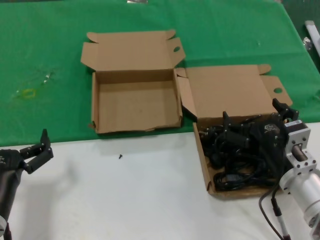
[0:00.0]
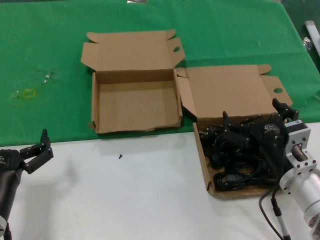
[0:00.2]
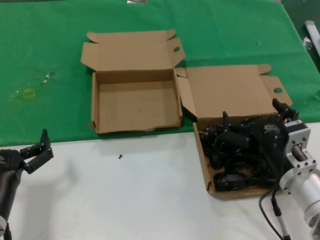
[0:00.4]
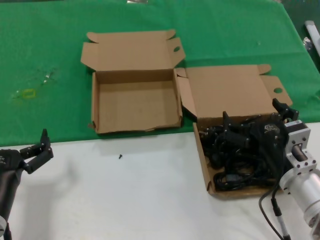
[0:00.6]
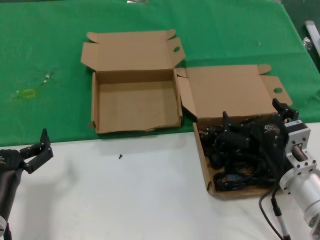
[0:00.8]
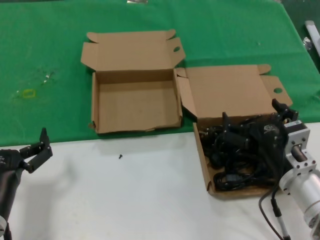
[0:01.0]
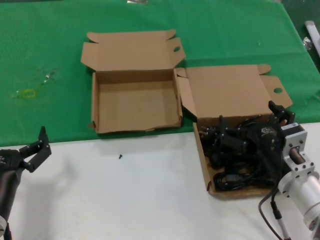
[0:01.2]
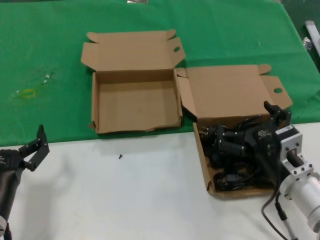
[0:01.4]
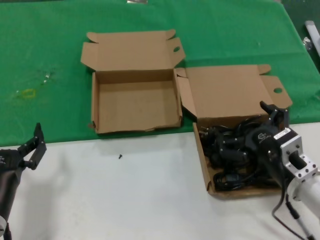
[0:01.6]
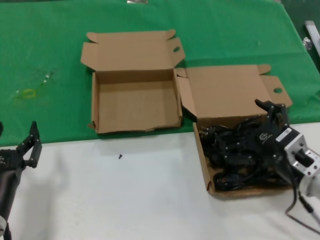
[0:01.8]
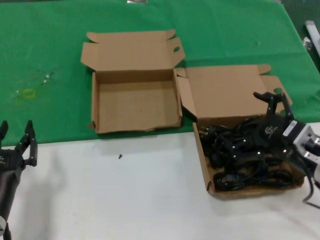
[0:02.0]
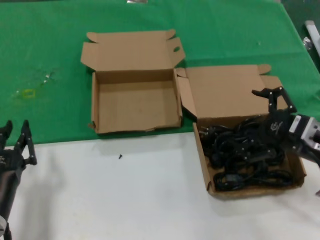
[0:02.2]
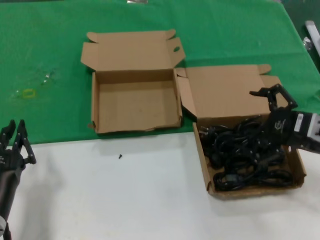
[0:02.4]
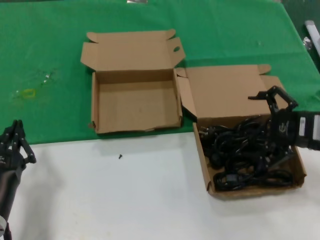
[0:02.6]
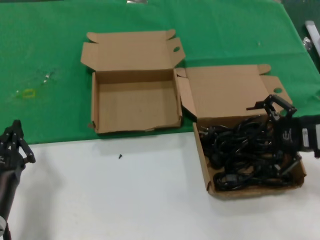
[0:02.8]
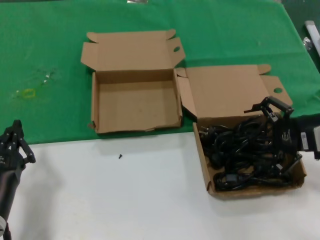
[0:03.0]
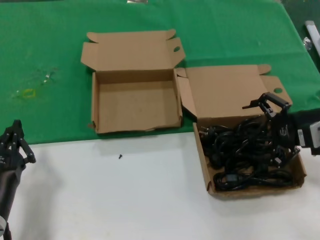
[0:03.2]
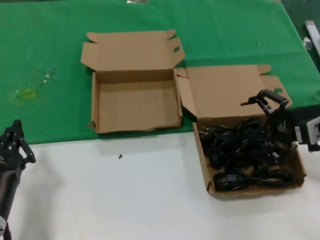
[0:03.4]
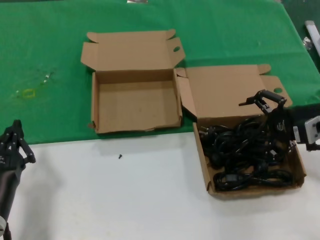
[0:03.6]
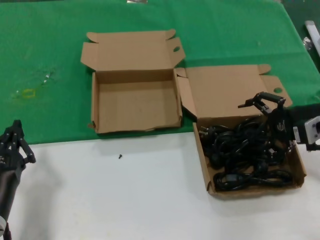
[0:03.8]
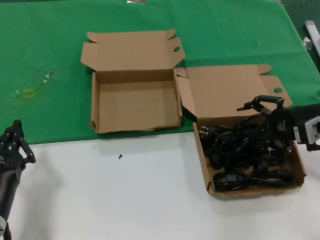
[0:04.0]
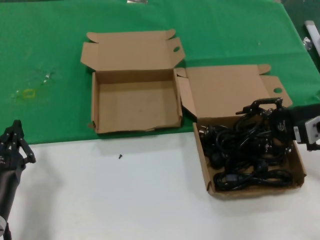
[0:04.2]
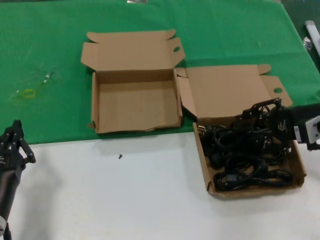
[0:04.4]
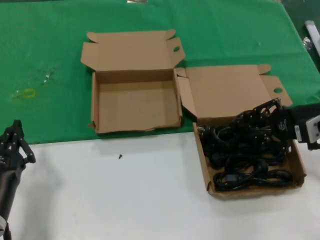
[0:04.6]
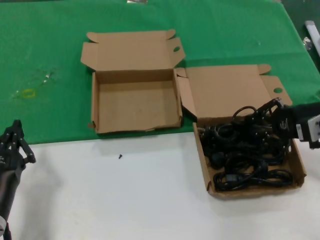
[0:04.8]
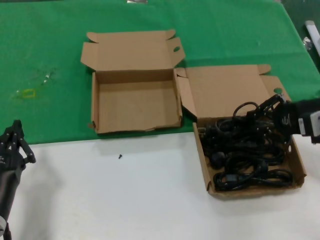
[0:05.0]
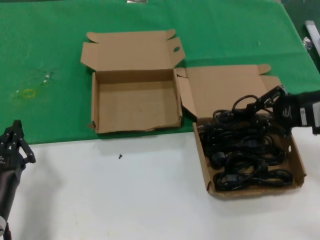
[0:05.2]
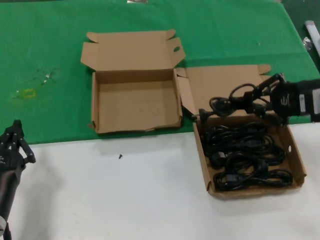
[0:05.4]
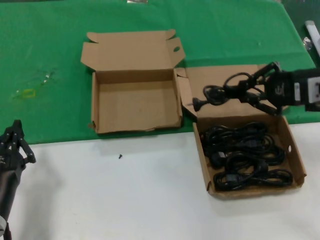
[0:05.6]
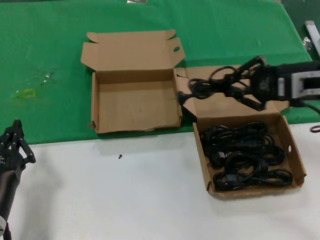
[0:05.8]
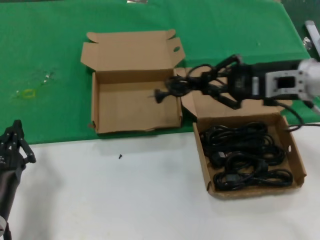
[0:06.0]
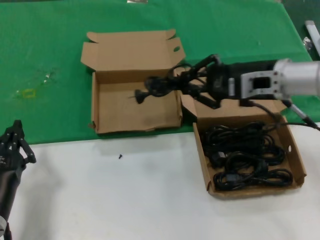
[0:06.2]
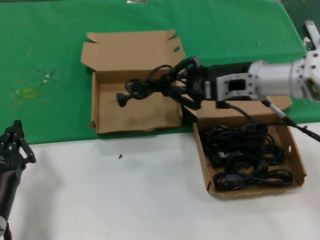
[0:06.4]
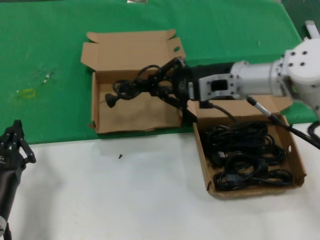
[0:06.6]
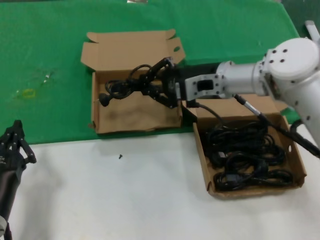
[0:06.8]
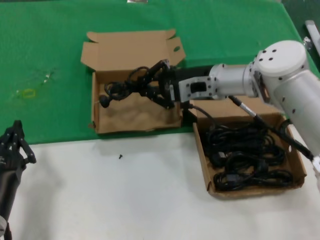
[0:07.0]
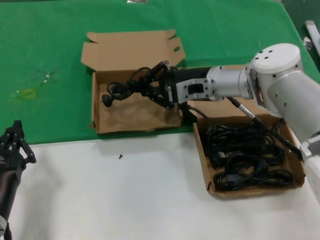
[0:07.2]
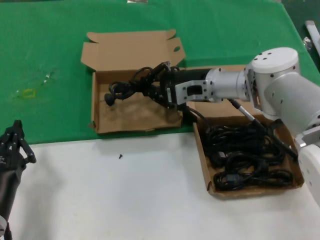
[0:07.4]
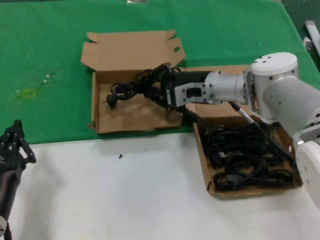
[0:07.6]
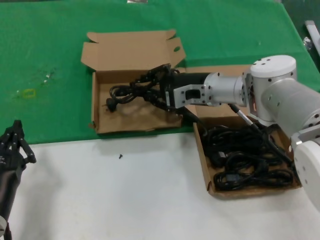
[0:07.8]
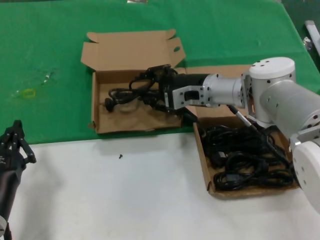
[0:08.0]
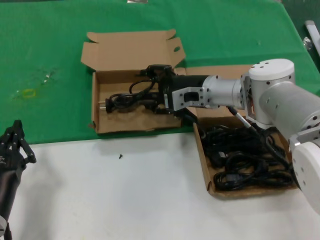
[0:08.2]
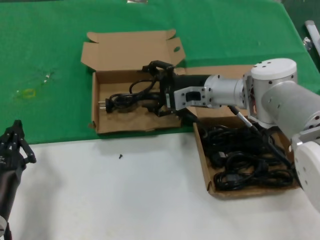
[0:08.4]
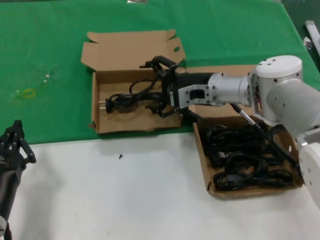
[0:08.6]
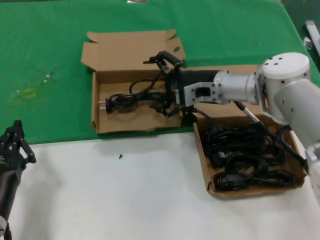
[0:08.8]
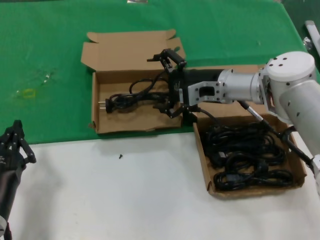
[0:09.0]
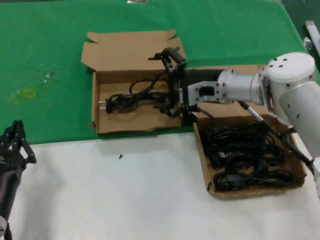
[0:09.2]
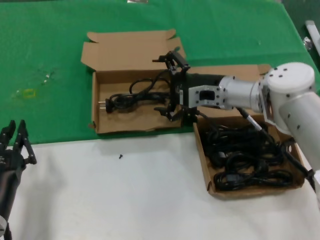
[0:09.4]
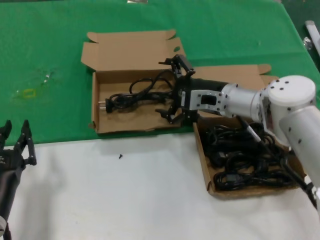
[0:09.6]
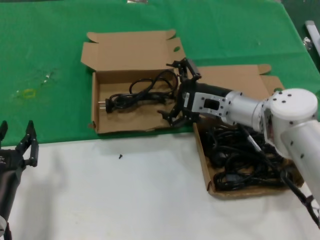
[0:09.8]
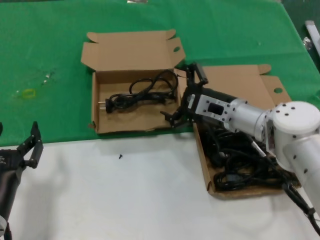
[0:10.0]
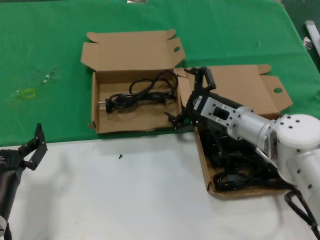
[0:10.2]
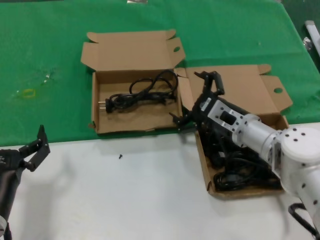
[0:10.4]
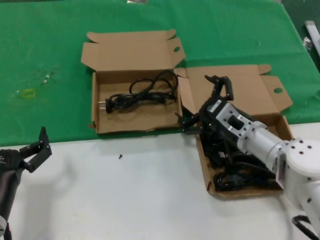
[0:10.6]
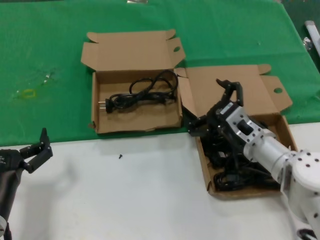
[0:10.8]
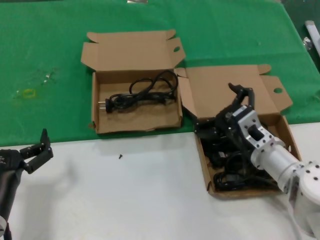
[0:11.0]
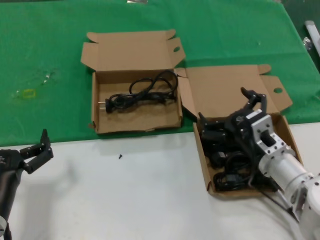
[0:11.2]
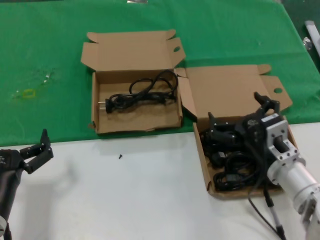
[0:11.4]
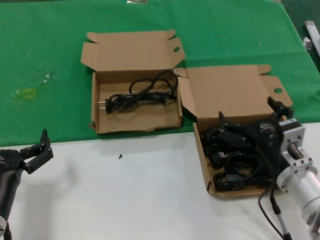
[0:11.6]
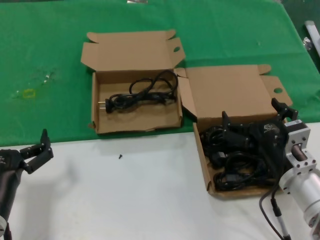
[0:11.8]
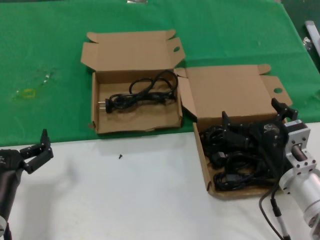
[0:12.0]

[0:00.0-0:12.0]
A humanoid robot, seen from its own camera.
Task of the whole recording: take the parts from the box containing them and put them into an empty box.
Step, 0:00.0 to 0:04.8: Grasp the data cable.
Step, 0:05.0 to 0:08.4: Place the data cable in the another box.
0:00.0 to 0:01.6: There are only small adjustments of the hands.
0:01.6 to 0:03.0: The right hand shifts approximately 20 cm to the right, upward and forward.
0:03.0 to 0:04.4: The hands move only a little.
0:04.4 to 0:06.0: The right hand is displaced to the left and upward by approximately 10 cm.
0:06.0 to 0:07.6: The right hand heads to the left, forward and downward, covering roughly 20 cm.
0:07.6 to 0:09.0: The hands make only small movements.
0:09.0 to 0:10.4: The right hand moves downward and backward, about 10 cm.
0:10.4 to 0:12.0: The right hand shifts roughly 15 cm backward.

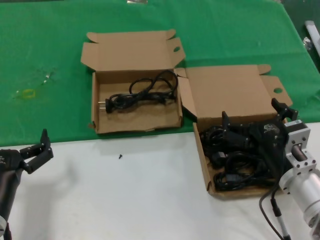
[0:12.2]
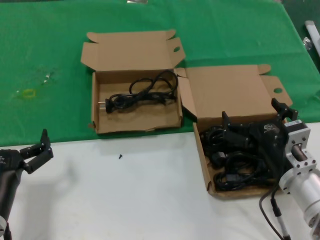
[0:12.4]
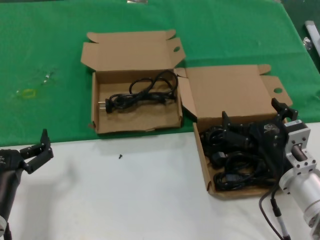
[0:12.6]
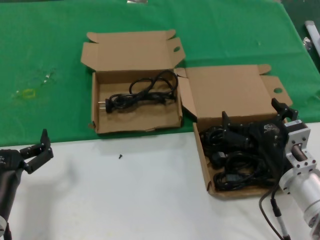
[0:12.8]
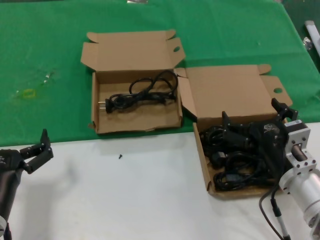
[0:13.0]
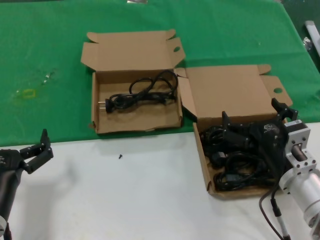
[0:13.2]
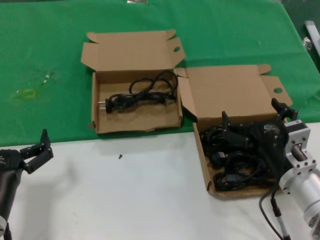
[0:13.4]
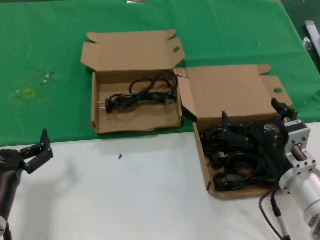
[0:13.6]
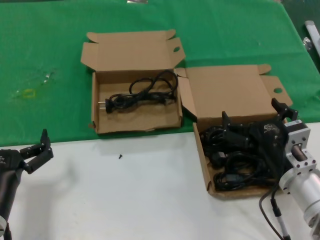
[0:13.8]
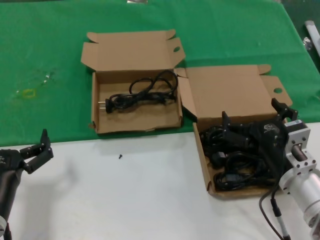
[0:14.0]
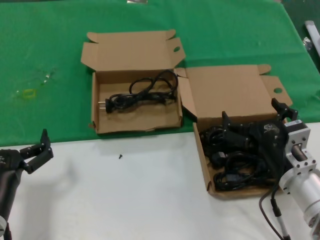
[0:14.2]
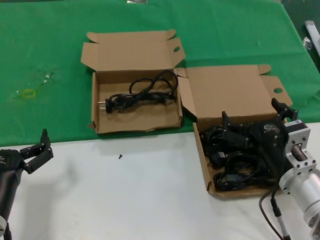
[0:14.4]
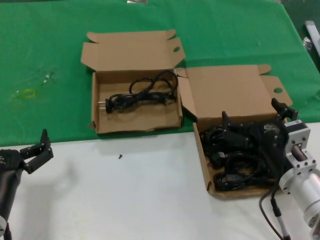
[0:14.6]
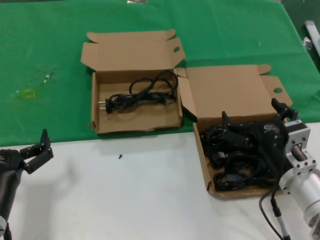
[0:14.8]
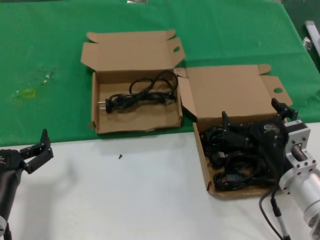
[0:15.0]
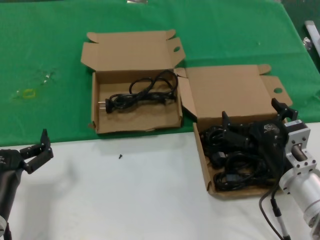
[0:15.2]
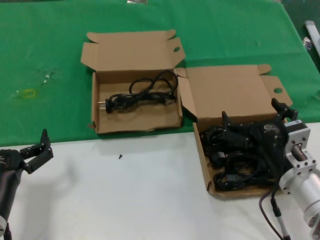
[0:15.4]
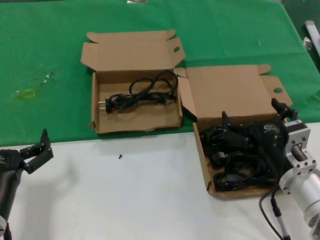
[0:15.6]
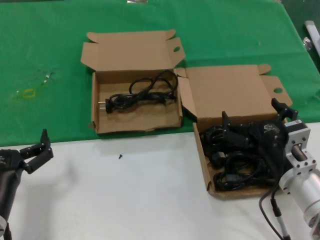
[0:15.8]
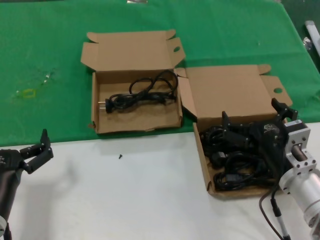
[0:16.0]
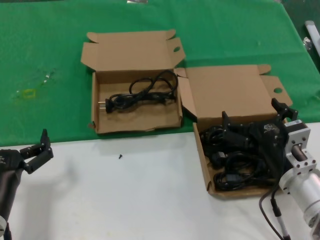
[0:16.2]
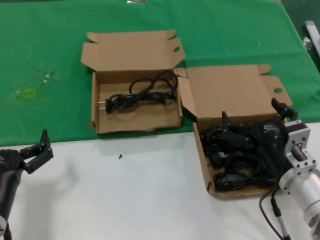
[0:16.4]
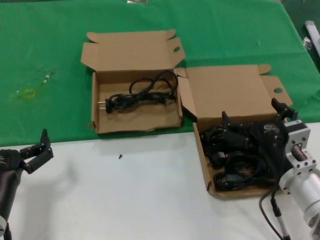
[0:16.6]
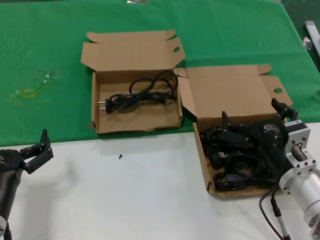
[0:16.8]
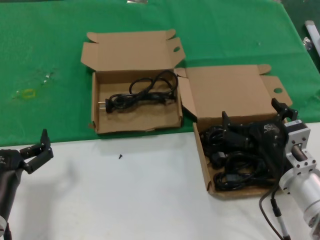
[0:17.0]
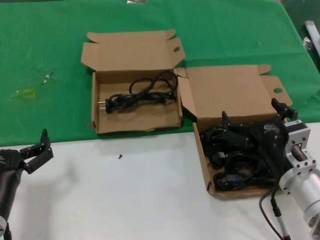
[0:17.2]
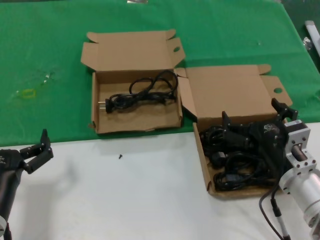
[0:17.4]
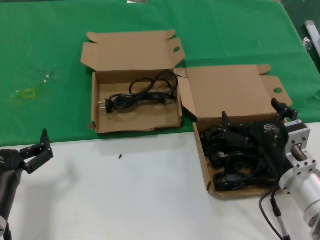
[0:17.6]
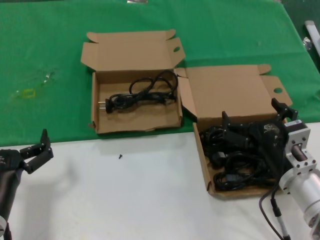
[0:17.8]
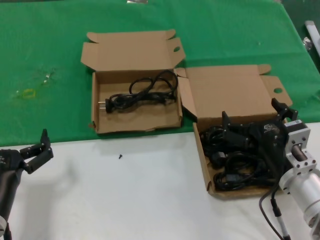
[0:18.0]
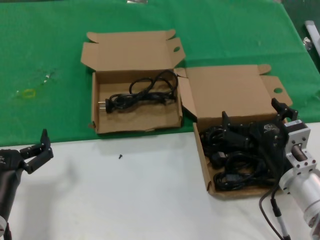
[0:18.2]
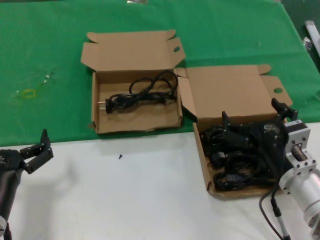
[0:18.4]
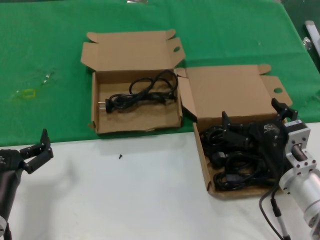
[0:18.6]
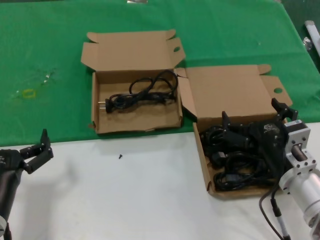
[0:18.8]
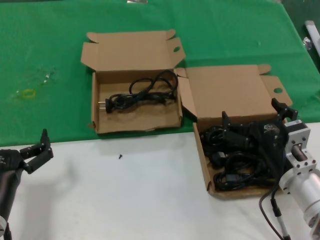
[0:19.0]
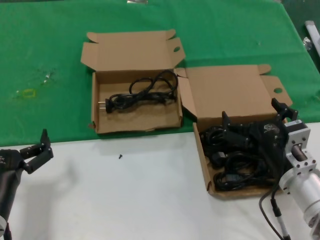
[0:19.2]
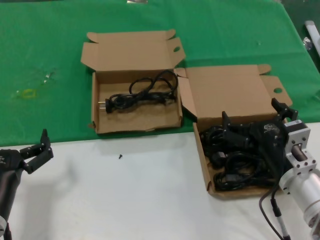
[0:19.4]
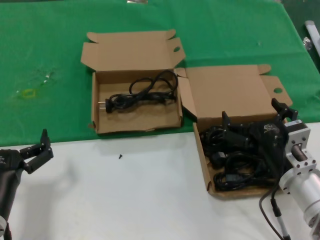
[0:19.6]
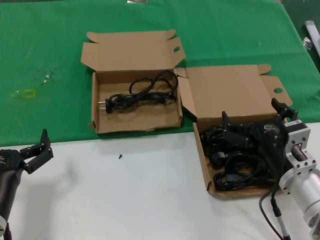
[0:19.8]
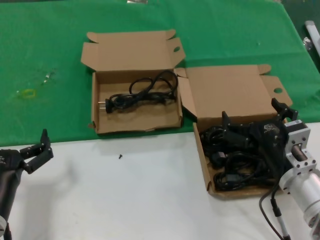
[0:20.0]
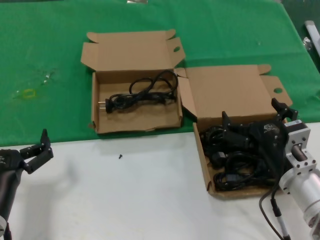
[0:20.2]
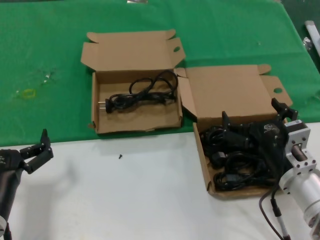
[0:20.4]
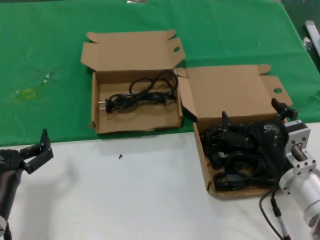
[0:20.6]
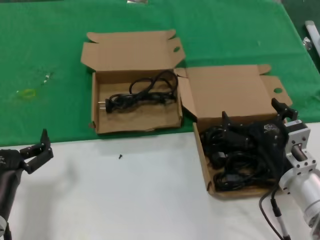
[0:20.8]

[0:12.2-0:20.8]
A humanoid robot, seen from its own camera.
Task of the whole recording: take the parts from the box containing them and put them into an empty box.
0:12.2 to 0:20.8: Both hands stay about where they are.

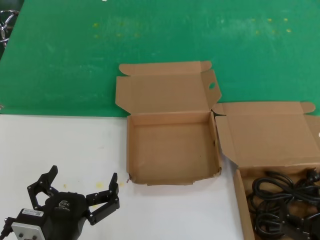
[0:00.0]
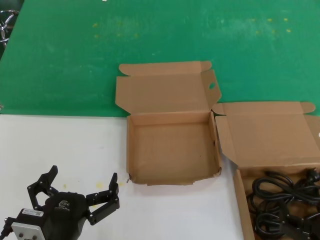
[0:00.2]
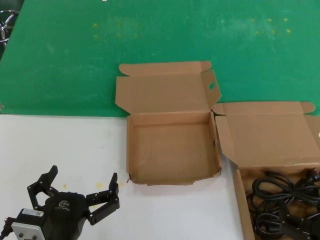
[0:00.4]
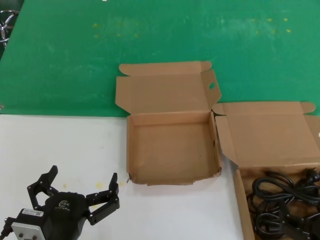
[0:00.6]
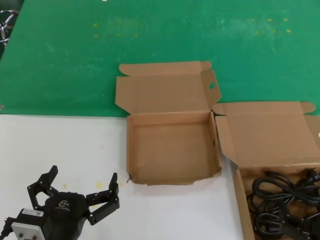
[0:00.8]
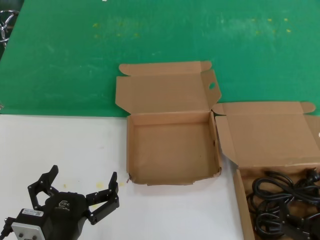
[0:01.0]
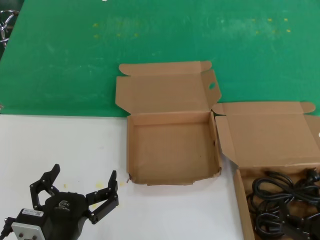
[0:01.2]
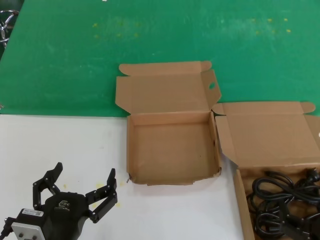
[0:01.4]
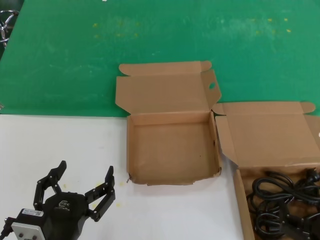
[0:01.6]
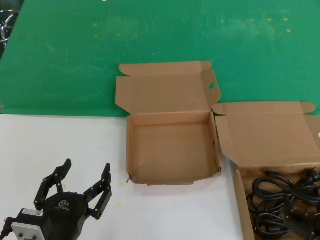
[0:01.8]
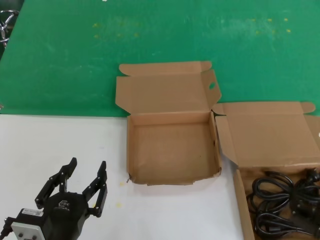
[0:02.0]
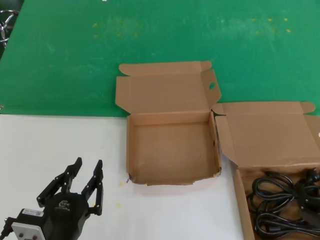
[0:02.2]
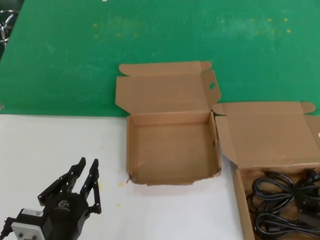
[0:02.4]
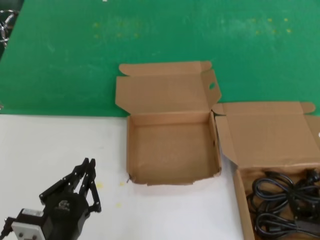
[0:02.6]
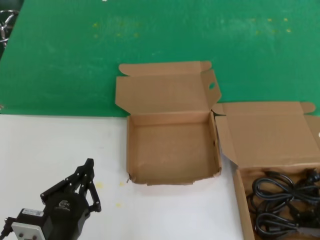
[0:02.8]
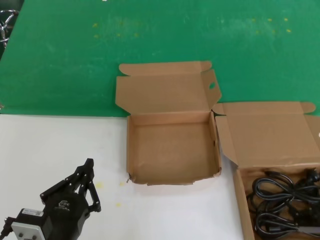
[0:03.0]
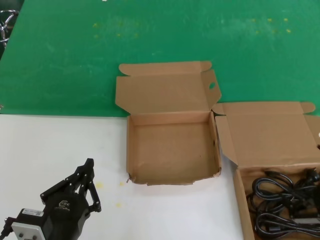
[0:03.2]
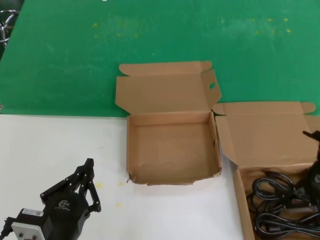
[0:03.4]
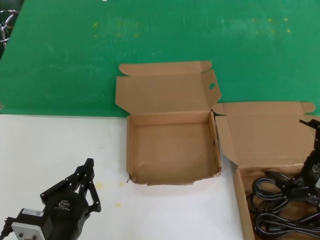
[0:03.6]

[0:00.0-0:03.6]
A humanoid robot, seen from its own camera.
Task of the whole recording: take the parts from the box containing them and put them into an empty box.
0:00.0 to 0:01.8: The two hands keep their place.
0:01.8 to 0:03.6: The right hand heads upward and forward, covering approximately 15 cm.
